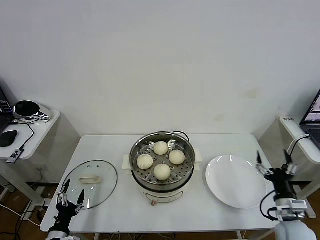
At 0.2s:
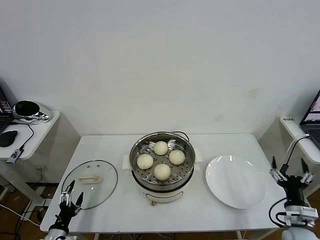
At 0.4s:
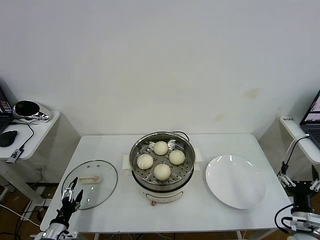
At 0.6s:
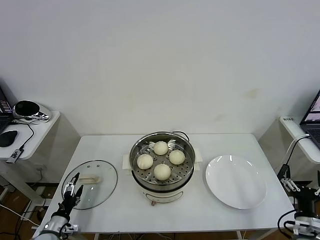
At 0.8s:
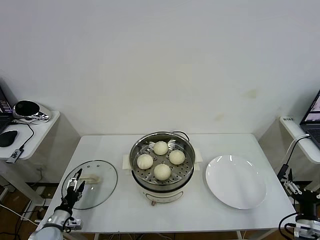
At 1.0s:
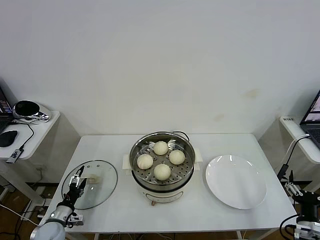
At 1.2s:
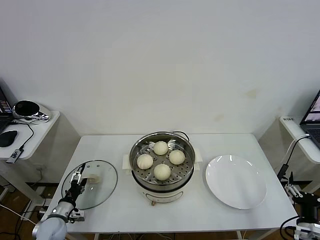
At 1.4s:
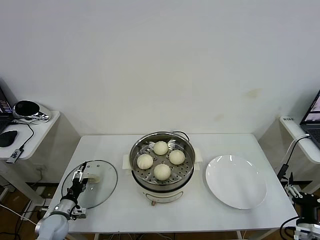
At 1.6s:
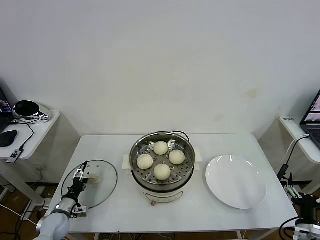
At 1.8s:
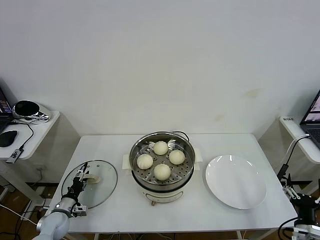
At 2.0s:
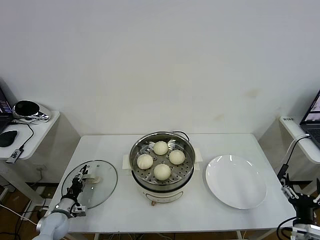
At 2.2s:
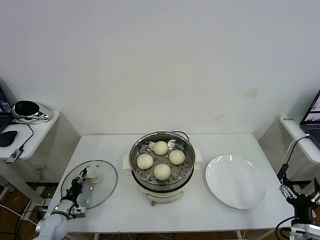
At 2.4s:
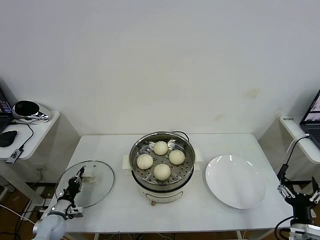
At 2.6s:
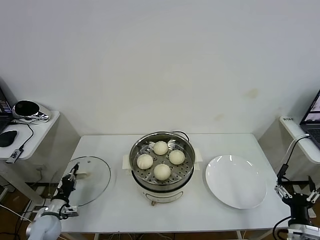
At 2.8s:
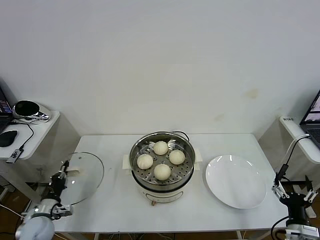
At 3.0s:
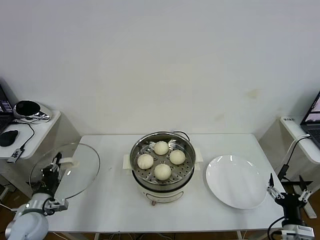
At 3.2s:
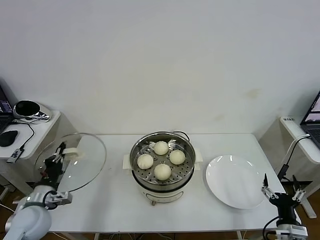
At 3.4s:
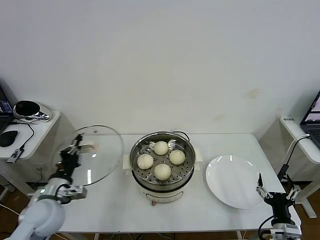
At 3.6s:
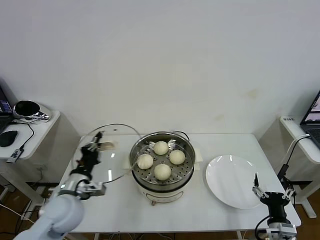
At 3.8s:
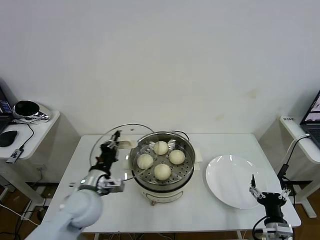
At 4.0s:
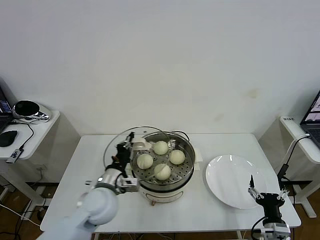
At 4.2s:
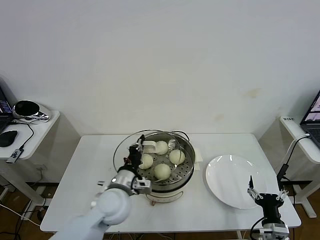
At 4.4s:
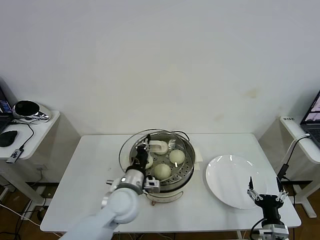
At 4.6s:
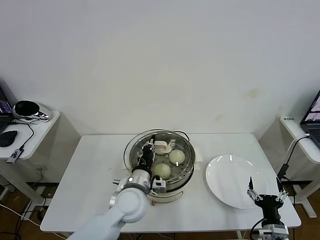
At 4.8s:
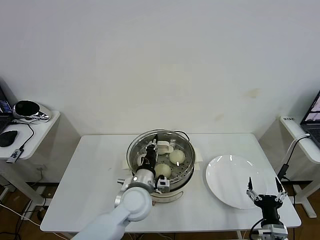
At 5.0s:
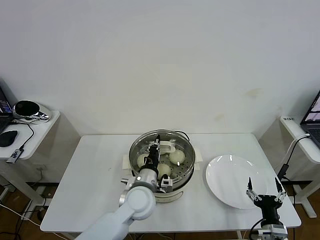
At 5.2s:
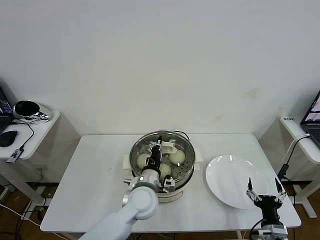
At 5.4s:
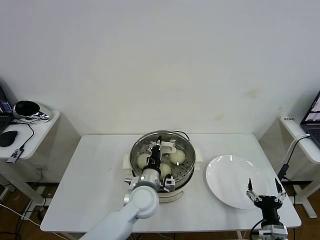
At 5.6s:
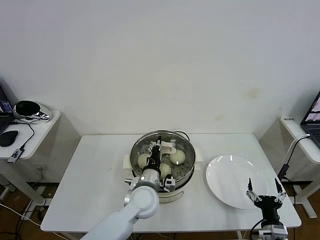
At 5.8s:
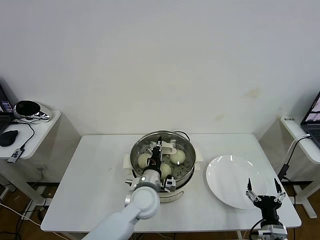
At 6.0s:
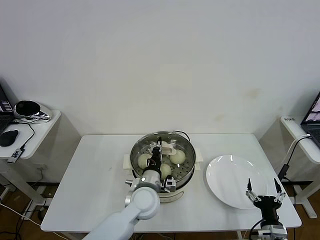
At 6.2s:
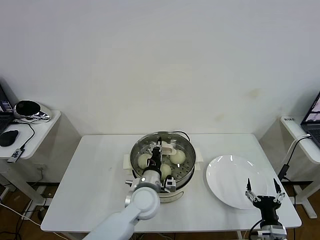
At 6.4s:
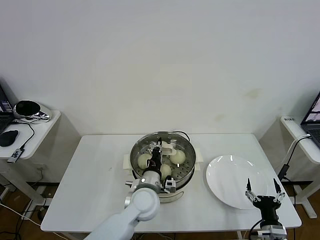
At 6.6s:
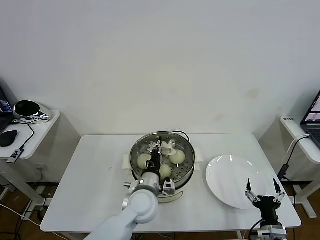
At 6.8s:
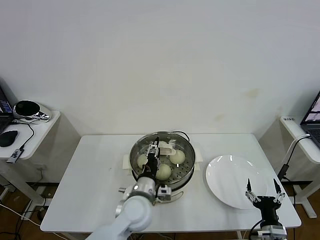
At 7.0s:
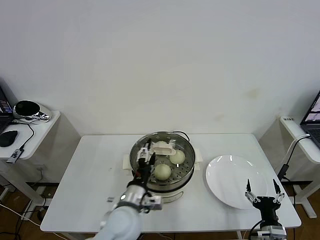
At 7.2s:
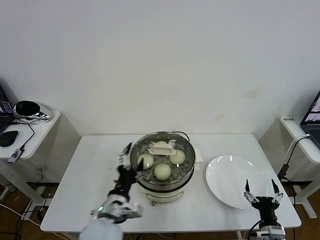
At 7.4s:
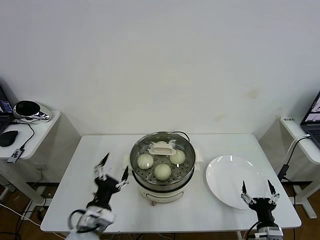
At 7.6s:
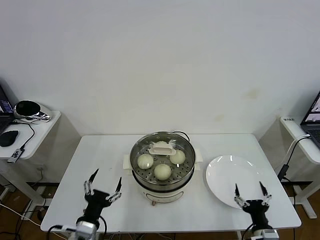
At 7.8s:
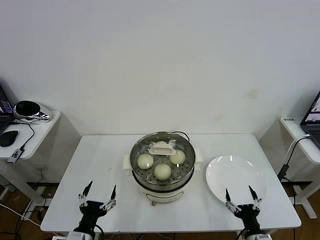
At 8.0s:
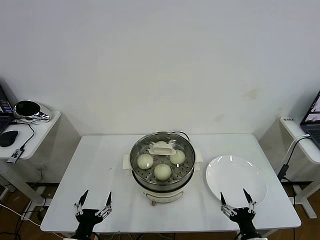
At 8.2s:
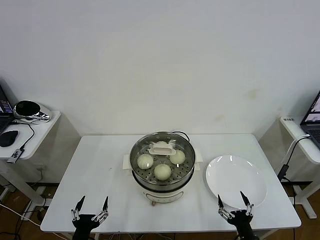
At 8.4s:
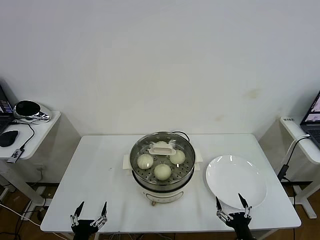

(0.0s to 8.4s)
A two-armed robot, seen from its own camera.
Task of the whole recording: take steamed baozi put them in steamer then cover it.
Step, 0.0s - 2.4s: Grasp the pot lid with left gripper.
Step, 2.6s - 6.8s: Place the pot lid on the steamer with left gripper.
0.0s - 1.4s: The left gripper shifts some 10 cm forward, while the right gripper travels backward by about 5 cm.
1.4s - 2.8s: The left gripper moves approximately 5 cm, and closes up.
2.8s - 4.2s: The left gripper goes roughly 30 cm to the right and upward; the right gripper moves about 5 cm.
4.2s - 5.6s: The left gripper is displaced to the right by some 10 cm.
5.6s - 7.0s: The left gripper travels backward by approximately 5 cm, and opens its fingers.
7.0s - 8.4s: The left gripper goes approximately 25 cm to the left, backward and downward. The right gripper heads to the left, covering about 5 cm.
